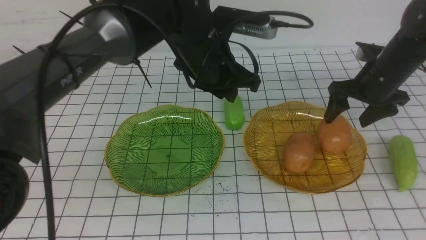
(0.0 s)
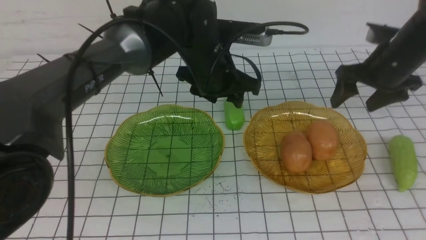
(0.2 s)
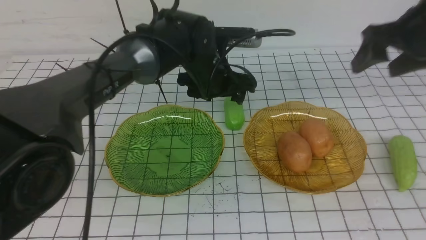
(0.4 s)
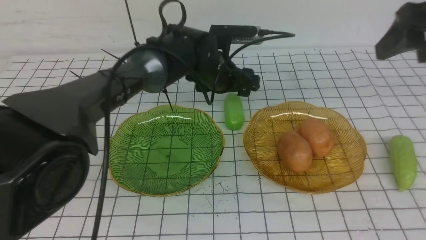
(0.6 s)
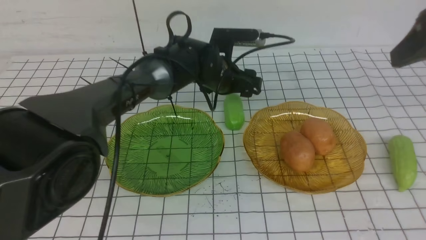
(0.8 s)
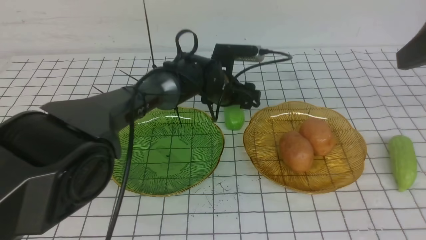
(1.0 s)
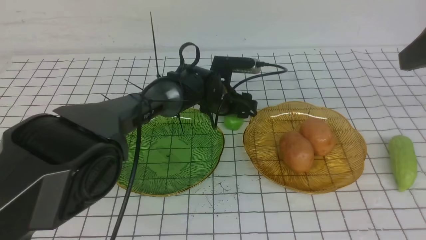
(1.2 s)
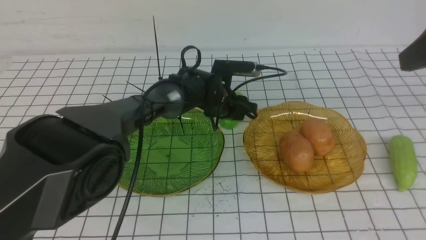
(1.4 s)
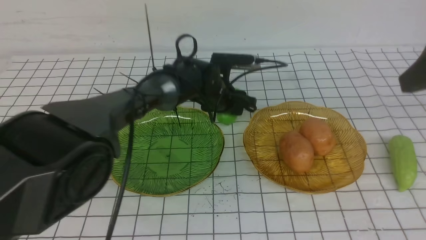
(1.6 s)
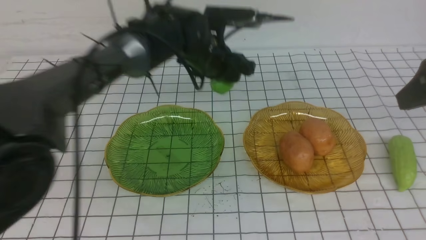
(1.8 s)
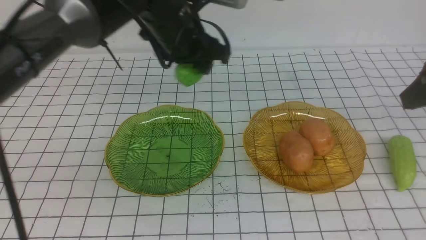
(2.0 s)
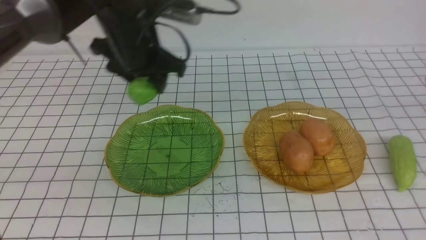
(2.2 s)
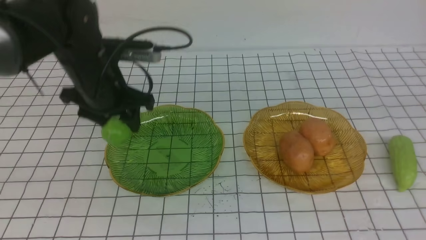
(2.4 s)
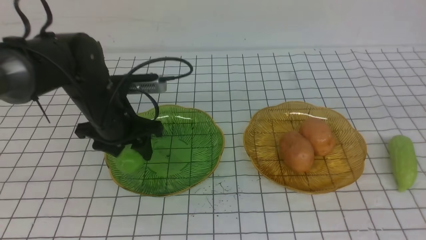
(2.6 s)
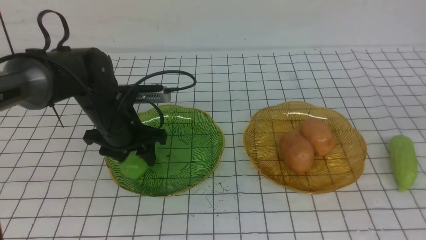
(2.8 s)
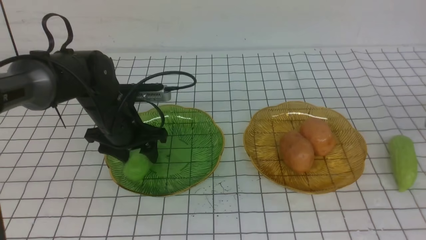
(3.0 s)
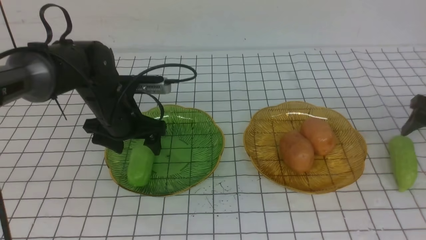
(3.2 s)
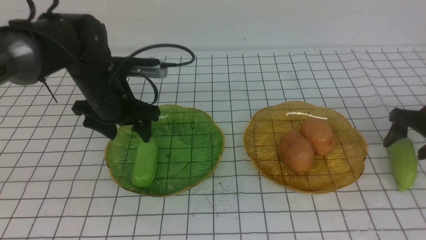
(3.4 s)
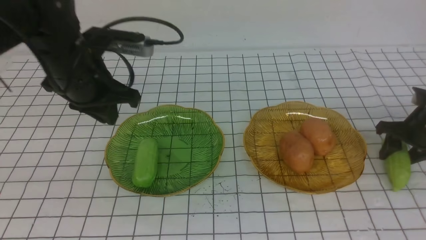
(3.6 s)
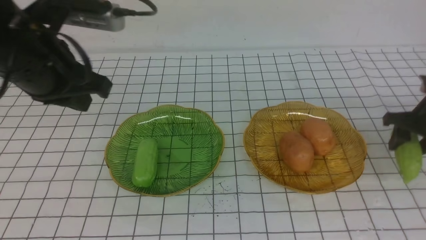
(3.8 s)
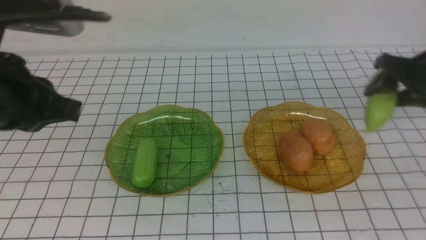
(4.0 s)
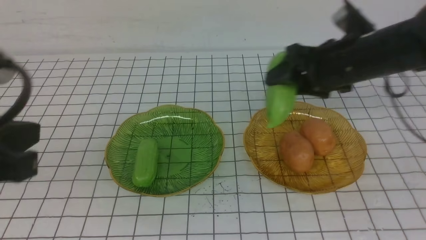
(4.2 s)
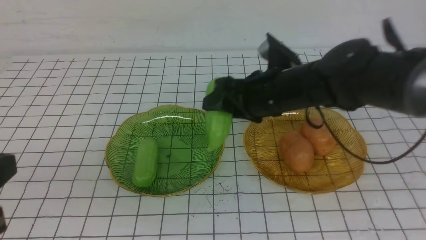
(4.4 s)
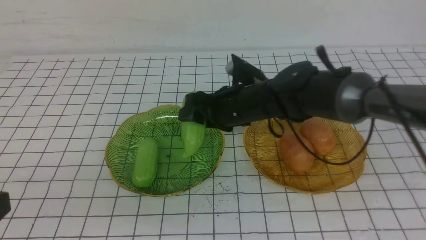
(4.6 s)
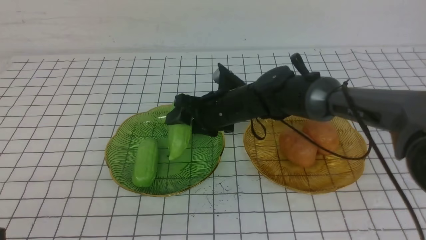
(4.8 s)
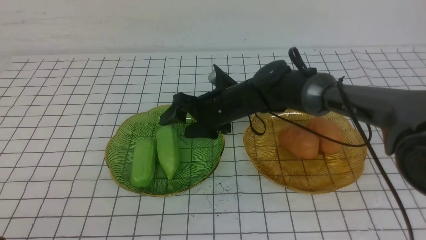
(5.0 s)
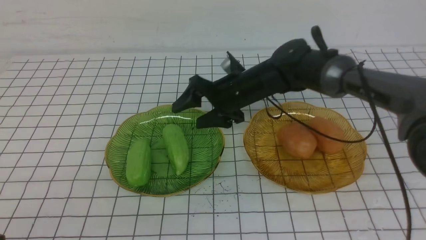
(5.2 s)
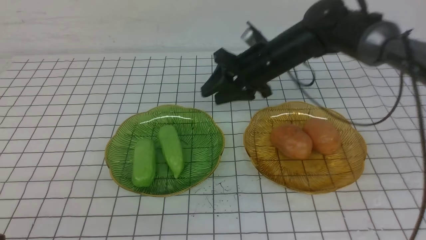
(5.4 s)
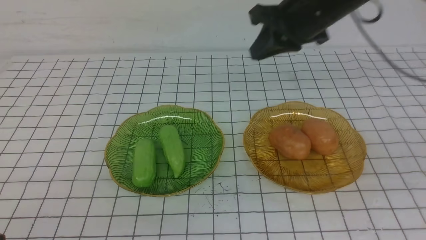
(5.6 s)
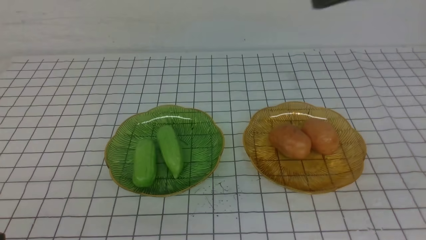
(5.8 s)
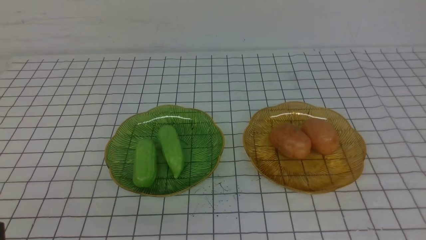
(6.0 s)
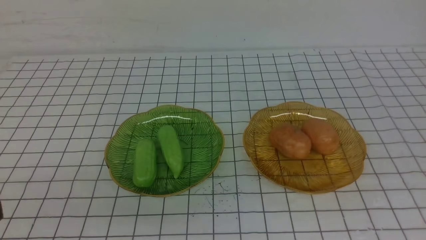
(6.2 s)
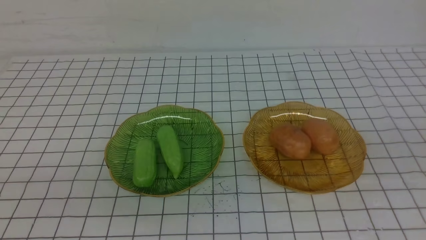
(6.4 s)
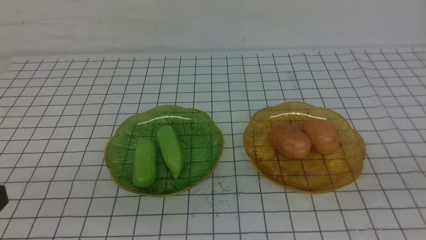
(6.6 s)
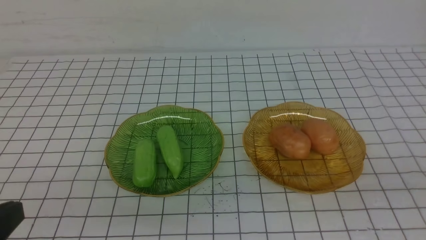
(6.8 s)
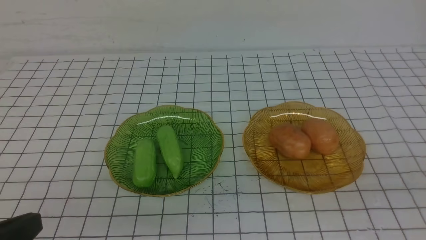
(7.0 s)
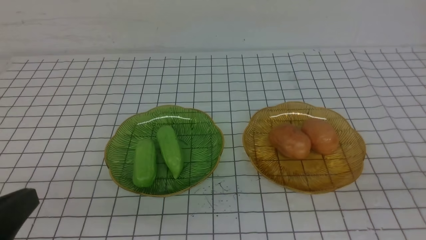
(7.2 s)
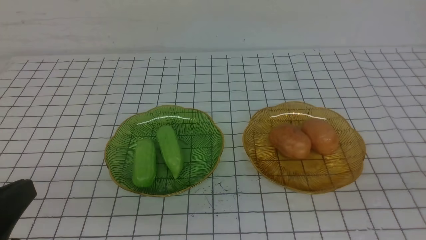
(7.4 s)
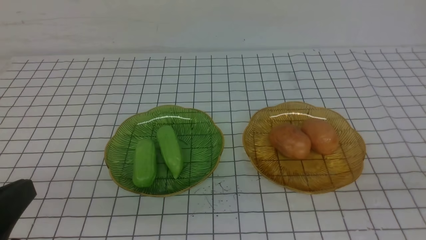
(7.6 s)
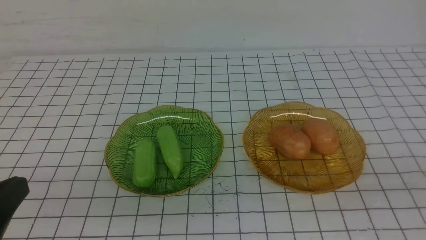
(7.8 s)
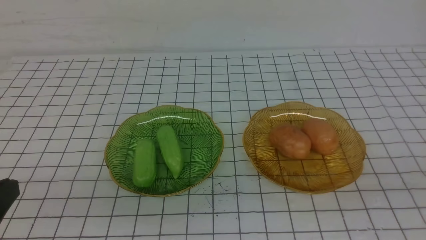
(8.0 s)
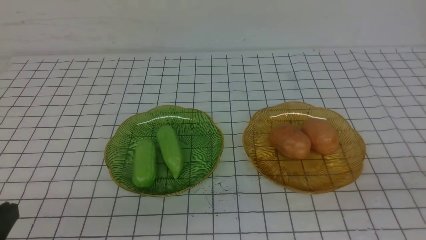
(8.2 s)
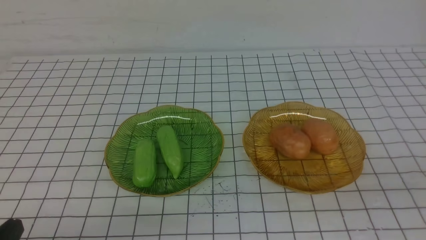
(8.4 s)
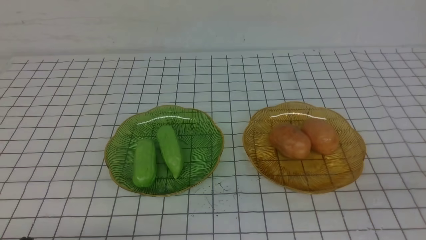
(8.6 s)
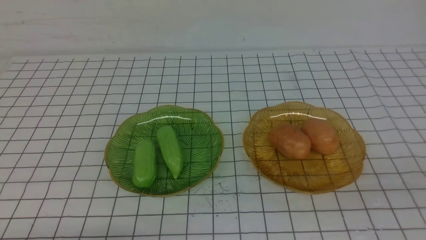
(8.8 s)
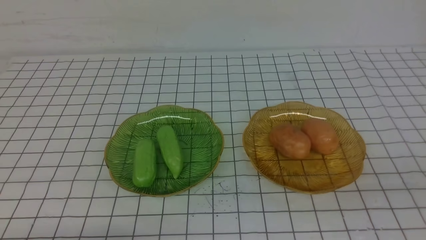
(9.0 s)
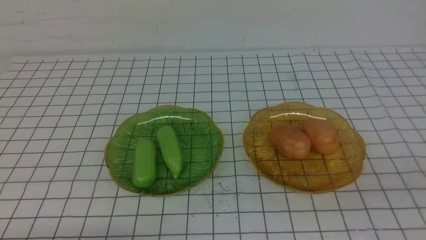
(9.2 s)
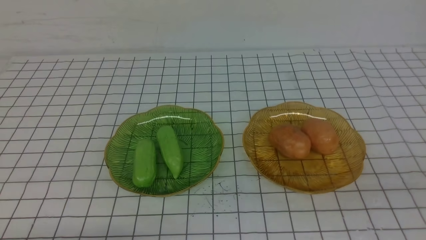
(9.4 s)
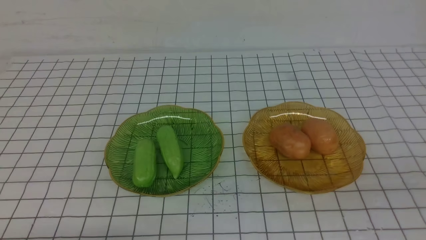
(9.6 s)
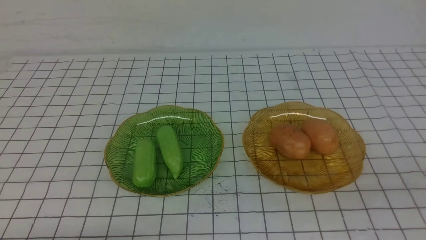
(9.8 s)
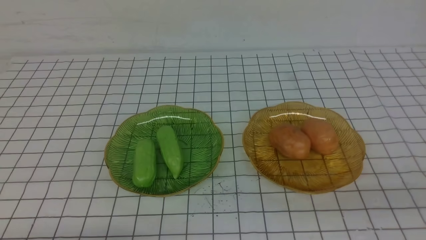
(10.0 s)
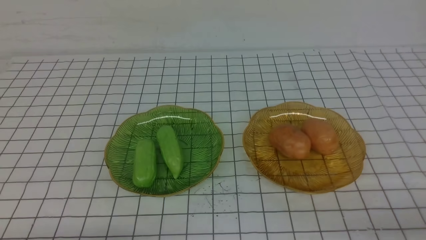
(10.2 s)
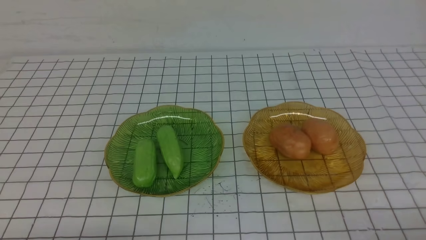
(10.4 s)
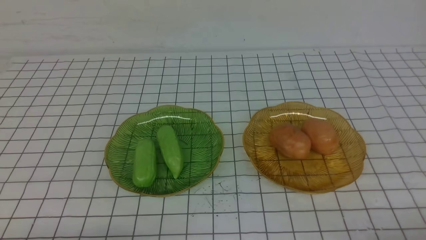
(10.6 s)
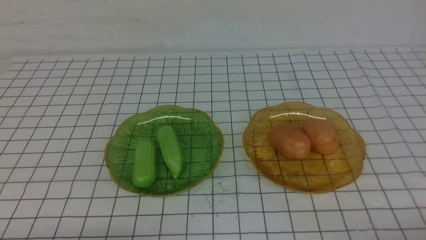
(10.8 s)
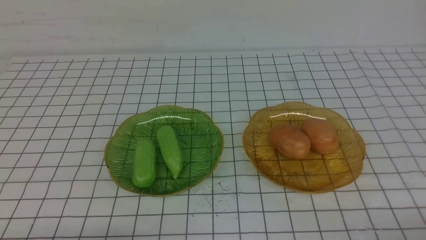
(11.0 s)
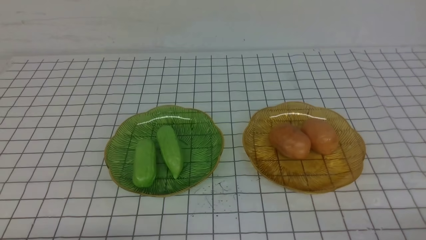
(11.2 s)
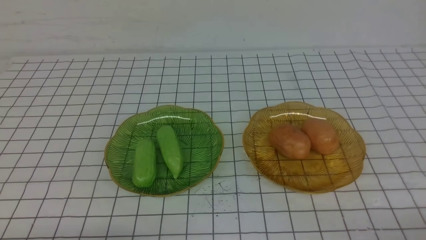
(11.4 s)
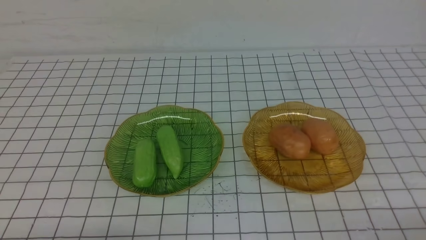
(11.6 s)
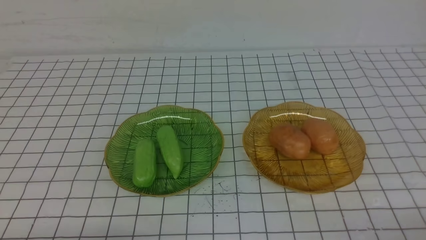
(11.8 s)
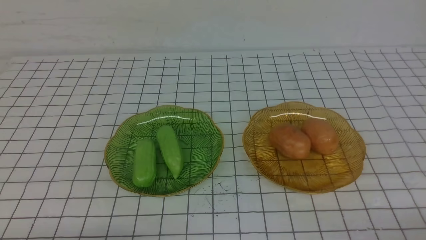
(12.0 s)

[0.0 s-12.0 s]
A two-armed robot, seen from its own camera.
Step, 0.2 to 3.2 s: use the left arm to grab a chayote and put it into the left plate.
Step, 3.4 to 5.0 s: Grab the chayote with your right arm and put it on the left plate.
0.0 to 1.6 s: The left gripper goes about 10 cm downward and forward. Meanwhile the right gripper moves backward and upward, some 20 cm.
1.6 to 3.0 s: The left gripper moves to the left and backward, approximately 20 cm; the right gripper travels downward, to the right and forward by approximately 25 cm, and closes and opens again.
3.0 to 4.4 s: The right gripper travels to the left by about 30 cm. The left gripper heads backward and upward, covering roughly 30 cm, and closes up.
4.4 to 6.0 s: The right gripper is displaced upward, to the right and backward by roughly 30 cm, and closes its fingers.
7.6 to 9.0 s: The left gripper moves downward, approximately 15 cm.

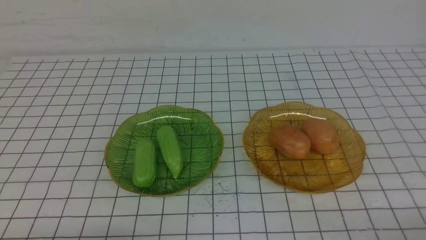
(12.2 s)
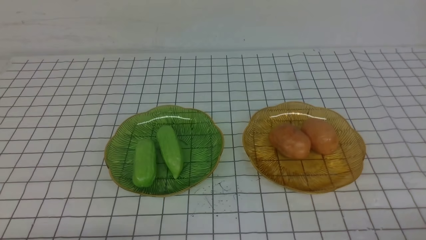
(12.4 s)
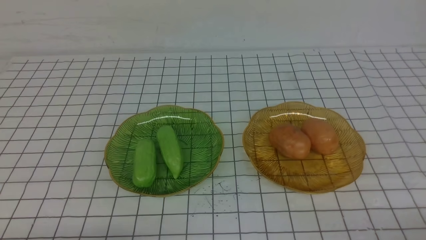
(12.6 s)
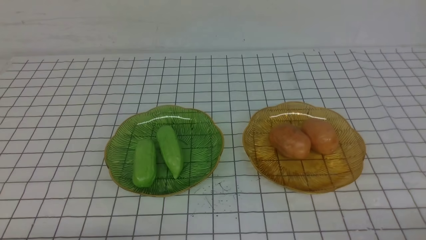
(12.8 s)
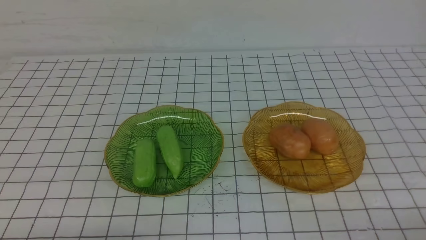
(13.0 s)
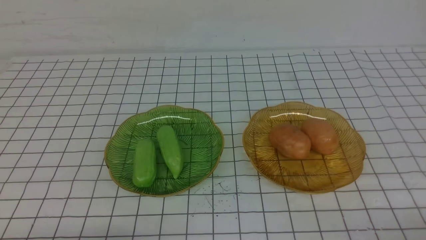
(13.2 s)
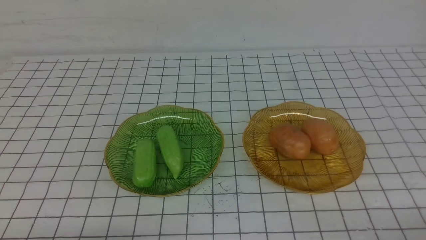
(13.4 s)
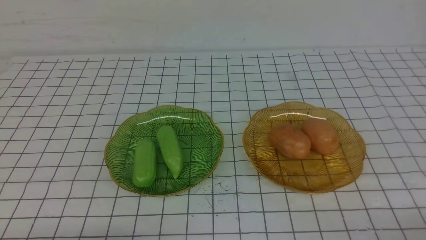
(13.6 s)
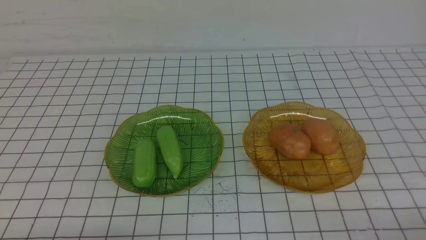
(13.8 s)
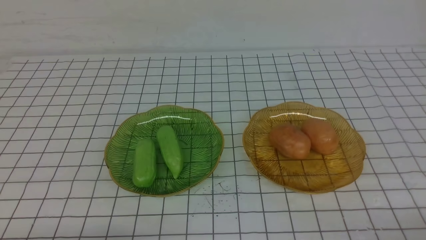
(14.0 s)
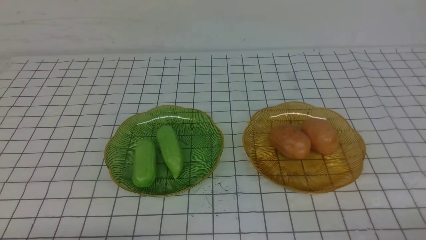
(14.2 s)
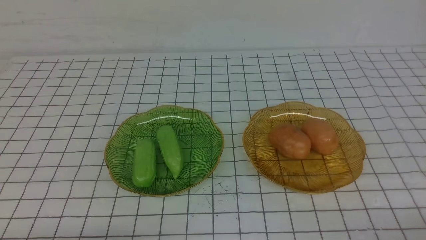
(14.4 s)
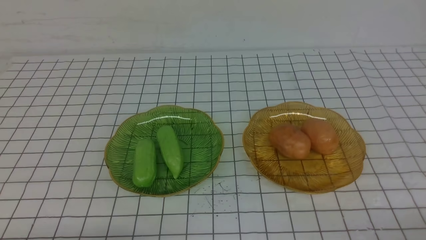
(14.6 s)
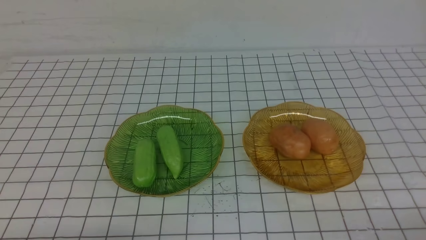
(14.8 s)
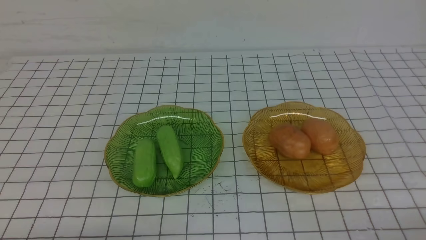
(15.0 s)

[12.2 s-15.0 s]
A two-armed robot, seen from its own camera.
12.2 to 15.0 s: Both grippers stay about where they are.
